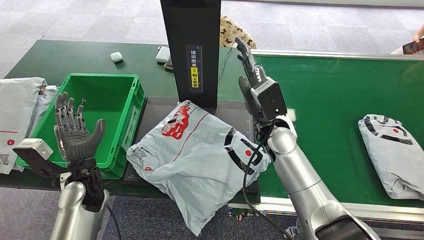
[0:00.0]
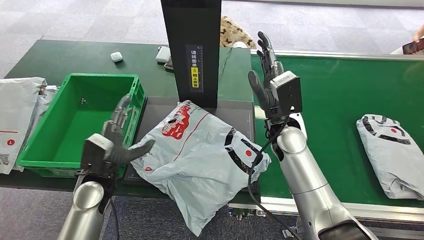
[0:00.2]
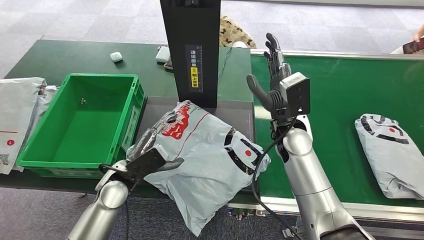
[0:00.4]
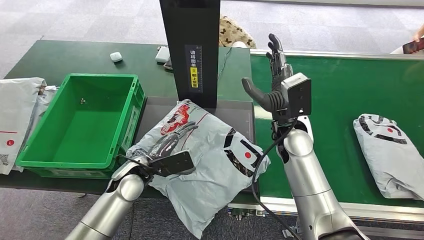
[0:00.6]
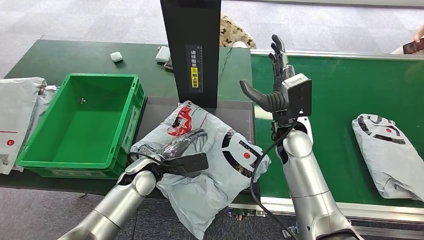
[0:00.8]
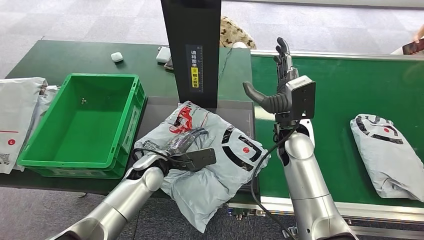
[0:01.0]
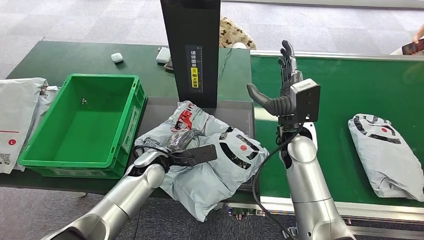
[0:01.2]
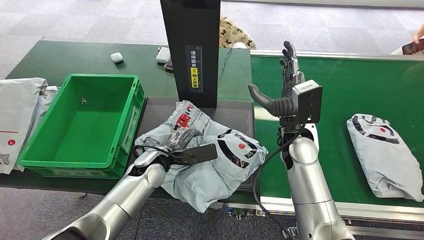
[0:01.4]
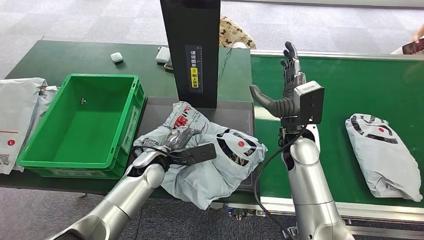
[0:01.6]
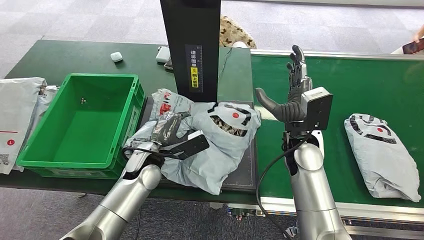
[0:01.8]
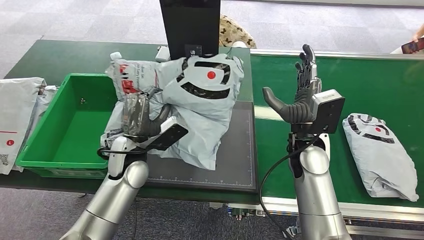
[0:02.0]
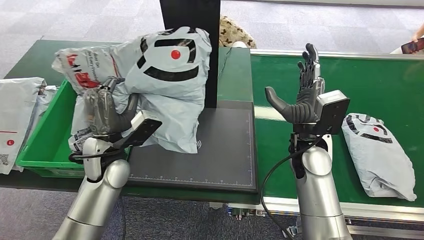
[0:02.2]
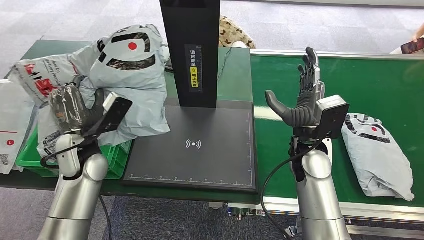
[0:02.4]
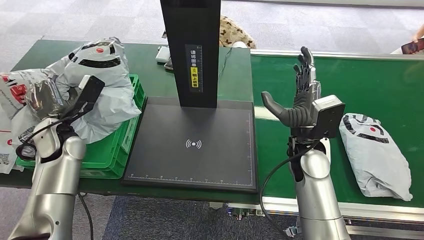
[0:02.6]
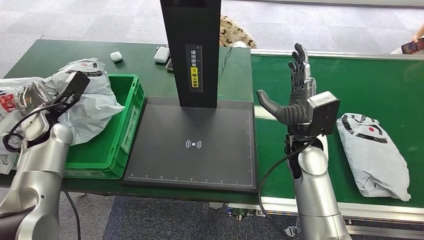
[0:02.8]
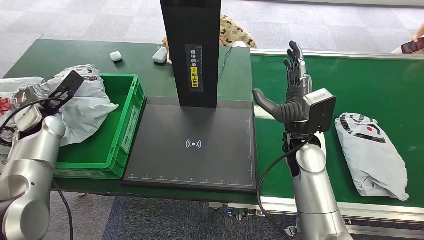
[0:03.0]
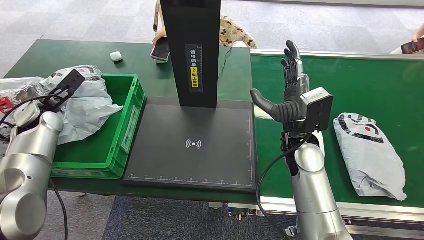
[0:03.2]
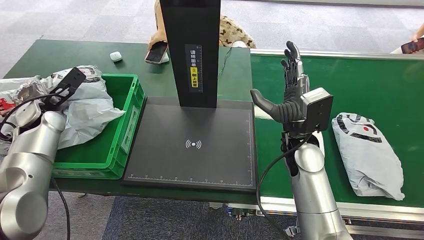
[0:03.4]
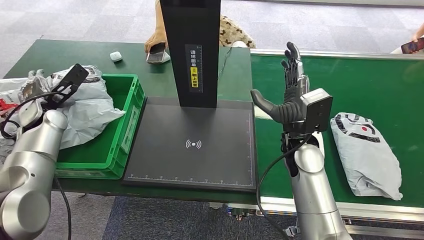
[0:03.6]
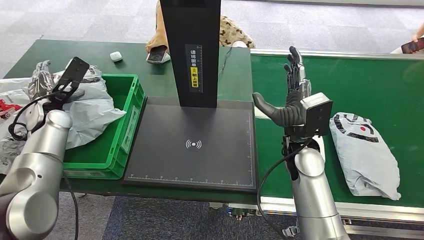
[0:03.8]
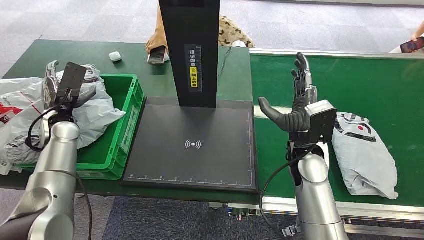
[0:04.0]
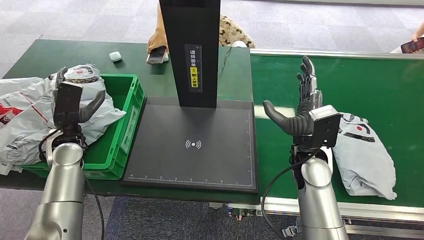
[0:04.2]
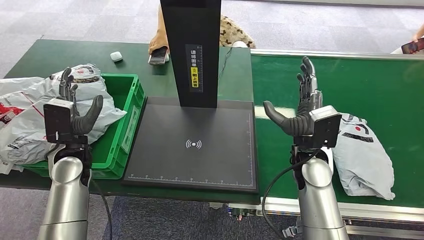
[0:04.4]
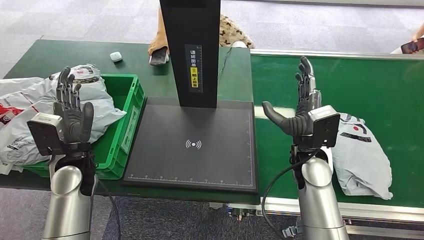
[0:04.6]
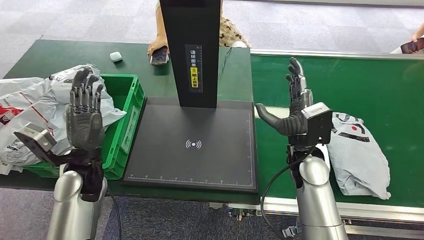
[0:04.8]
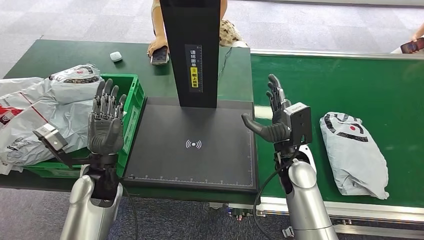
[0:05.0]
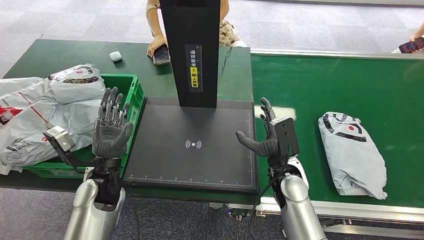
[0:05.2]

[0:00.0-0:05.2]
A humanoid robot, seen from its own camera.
Step, 0:00.0 to 0:03.0: Pick up the package from the inbound machine.
Step, 0:03.2 to 0:05.2: Place the package into the parcel locker.
